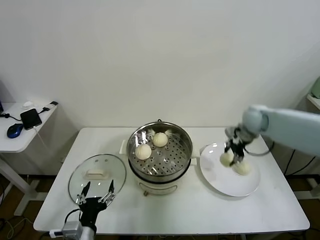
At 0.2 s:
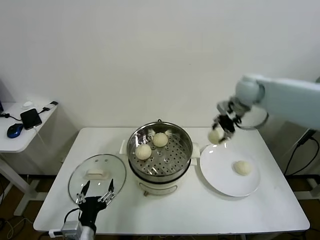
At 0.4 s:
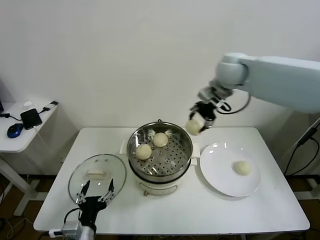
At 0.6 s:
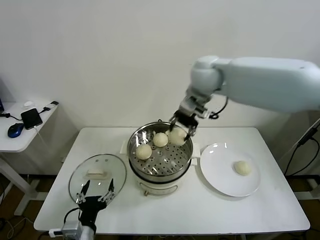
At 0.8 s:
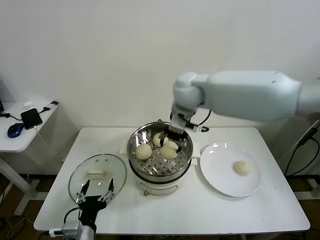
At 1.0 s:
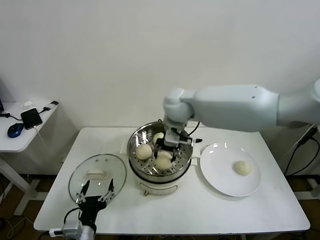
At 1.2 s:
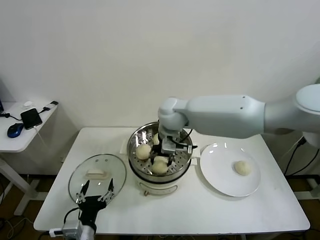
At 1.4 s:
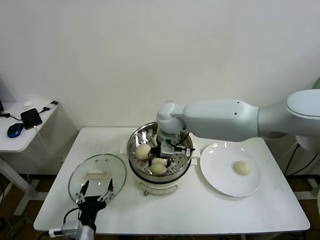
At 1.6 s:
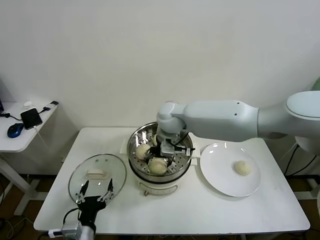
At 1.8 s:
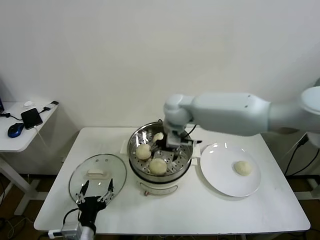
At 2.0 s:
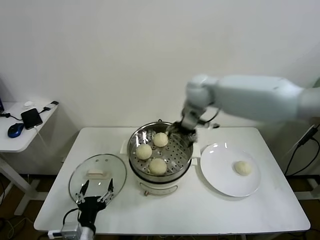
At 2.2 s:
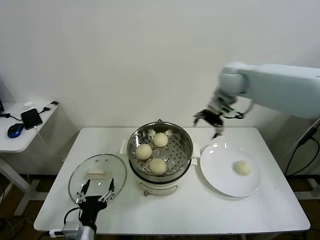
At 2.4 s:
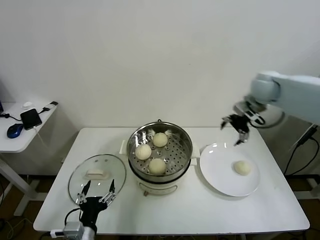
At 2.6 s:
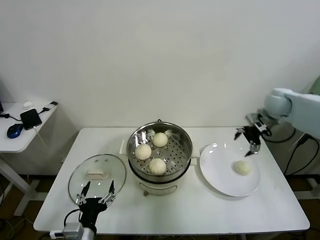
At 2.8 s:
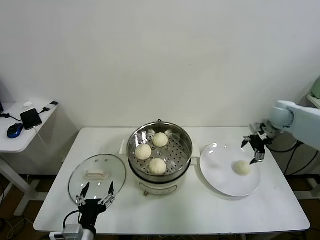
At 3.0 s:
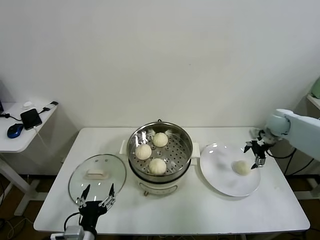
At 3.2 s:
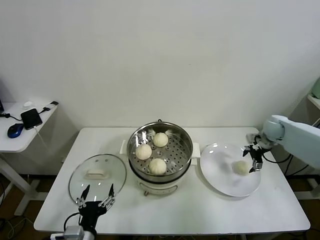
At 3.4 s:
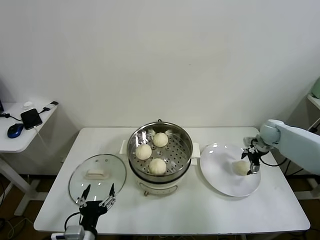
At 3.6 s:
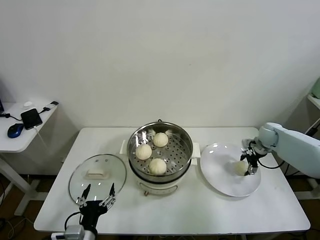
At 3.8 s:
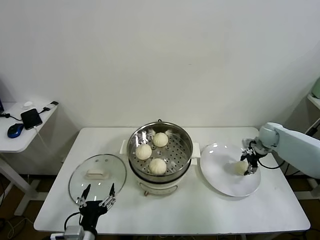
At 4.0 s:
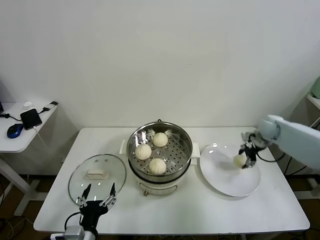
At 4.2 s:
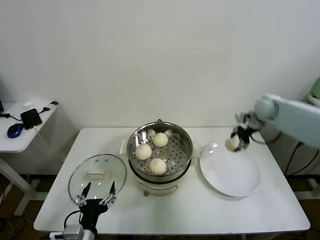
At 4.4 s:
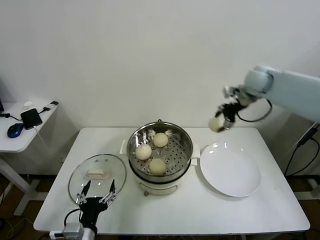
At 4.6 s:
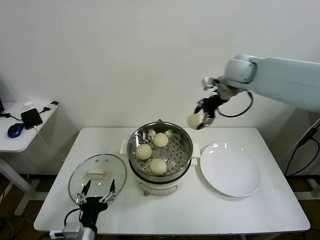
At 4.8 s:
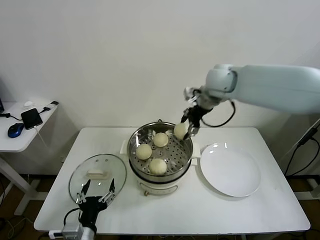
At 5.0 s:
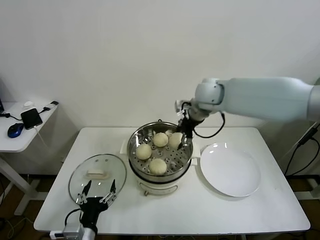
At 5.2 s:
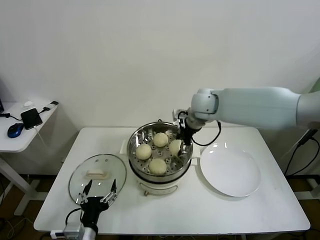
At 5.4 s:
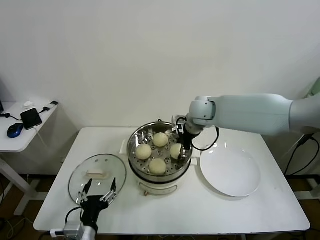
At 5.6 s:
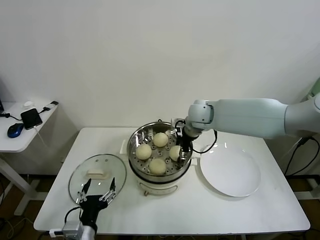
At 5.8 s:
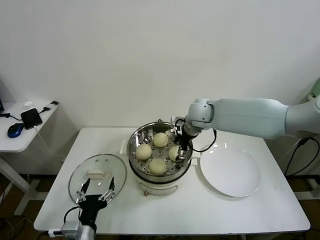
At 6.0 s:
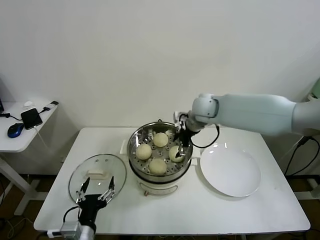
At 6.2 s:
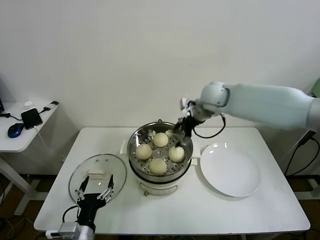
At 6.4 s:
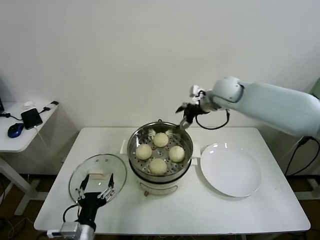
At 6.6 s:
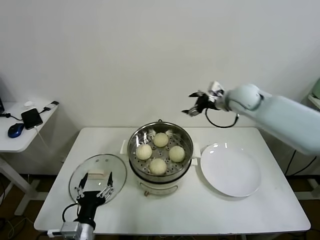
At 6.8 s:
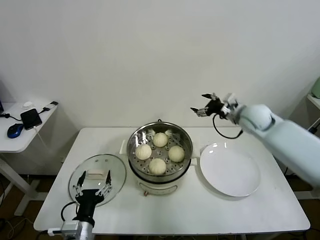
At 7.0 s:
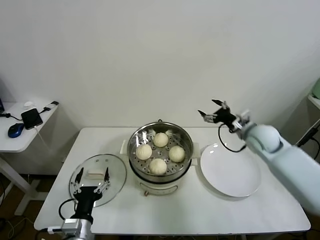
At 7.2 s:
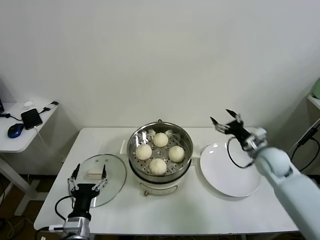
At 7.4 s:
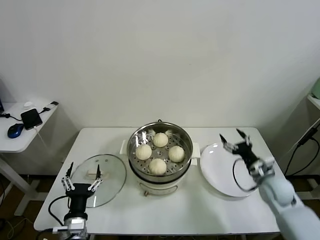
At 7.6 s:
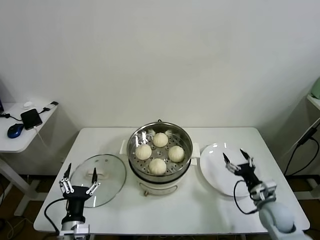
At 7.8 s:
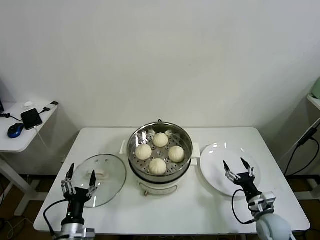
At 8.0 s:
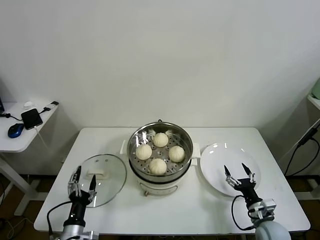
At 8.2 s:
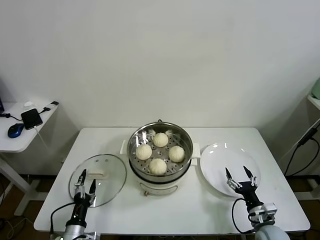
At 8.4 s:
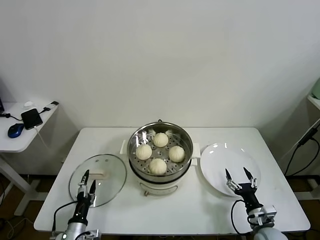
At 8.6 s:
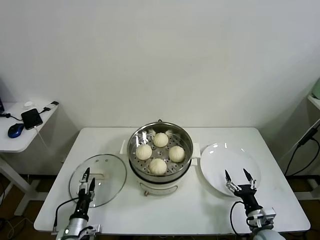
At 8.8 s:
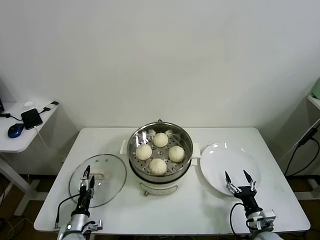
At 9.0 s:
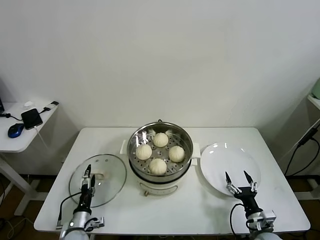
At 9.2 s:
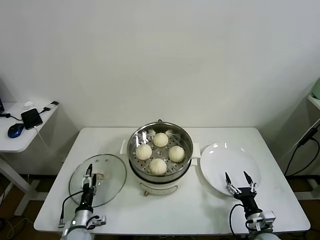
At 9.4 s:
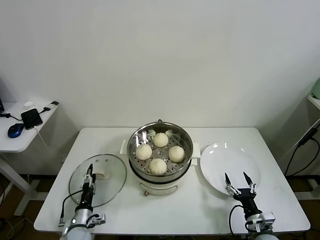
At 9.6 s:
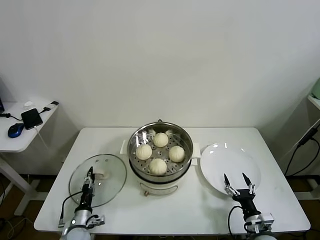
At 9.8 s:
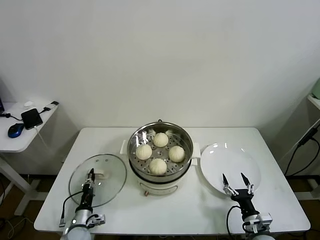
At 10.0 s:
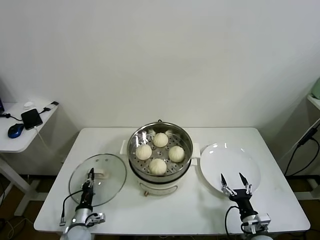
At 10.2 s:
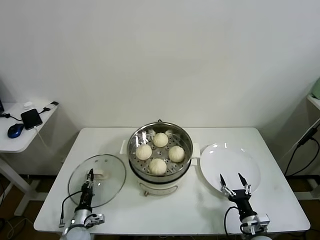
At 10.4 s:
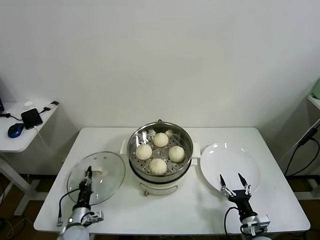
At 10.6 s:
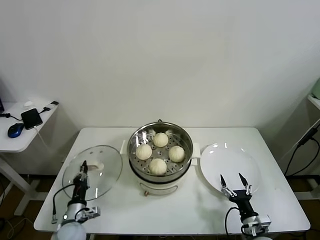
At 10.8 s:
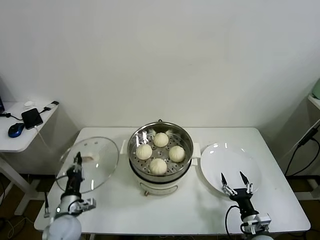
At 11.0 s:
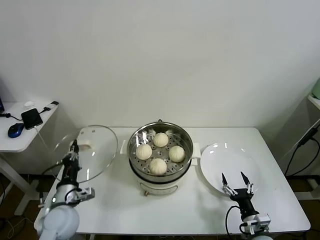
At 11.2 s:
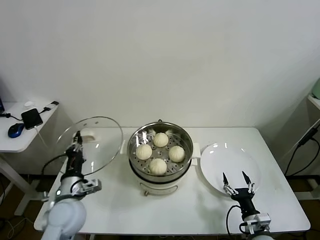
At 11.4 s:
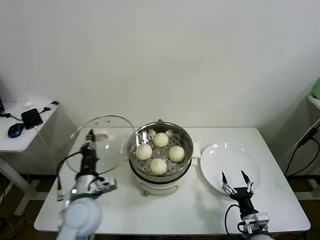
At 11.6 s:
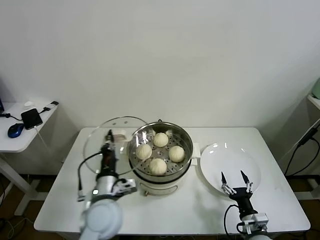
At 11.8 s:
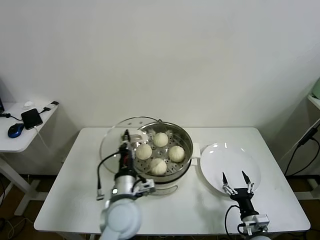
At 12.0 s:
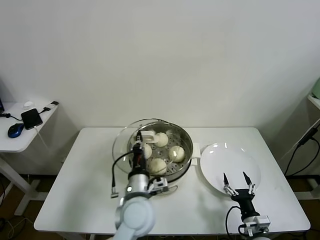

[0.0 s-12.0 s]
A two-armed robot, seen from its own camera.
Task of the whole recording: take steamed baozi put them in steamer.
Step, 0.0 to 1.6 s: Place the baozi on the steamer with right gripper.
Step, 1.8 to 3.6 s: Grasp the baozi in the plate with right gripper.
Step, 4.0 to 5.8 s: Place the baozi on the steamer with right gripper.
Step, 6.0 to 10.0 s: Grasp the pot lid with left gripper.
0.0 to 1.6 s: The right gripper is displaced to the left by approximately 30 cm, and opens.
1.6 to 3.0 s: The right gripper travels to the right by roughly 40 cm.
3.0 to 4.4 s: The right gripper goes some 20 cm upward and to the left, and closes its fingers.
4.4 to 6.0 s: The right gripper goes approximately 20 cm to the left and downward, and opens up.
6.0 to 7.6 s: The left gripper heads downward, covering some 5 cm. Meanwhile the right gripper is displaced downward, backward and to the right by approximately 40 cm.
7.6 to 9.0 s: The right gripper travels backward and downward by roughly 10 cm; the left gripper goes about 15 cm downward, forward and to the left.
9.0 to 10.4 s: The left gripper closes.
10.4 to 12.0 s: The left gripper travels to the right and upward by about 35 cm.

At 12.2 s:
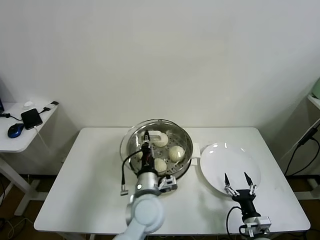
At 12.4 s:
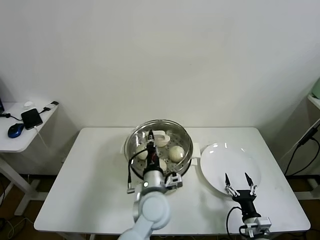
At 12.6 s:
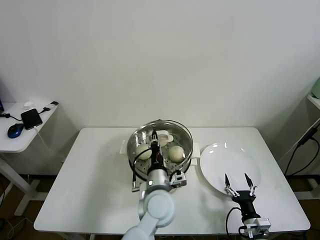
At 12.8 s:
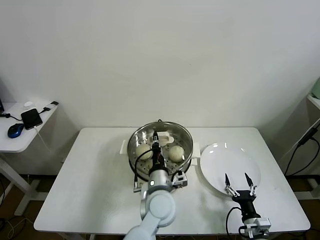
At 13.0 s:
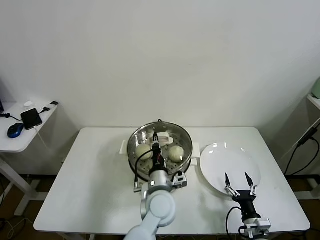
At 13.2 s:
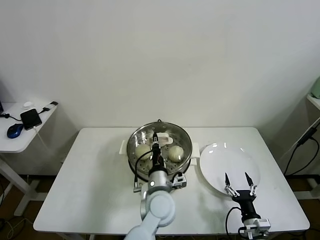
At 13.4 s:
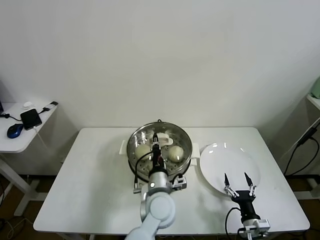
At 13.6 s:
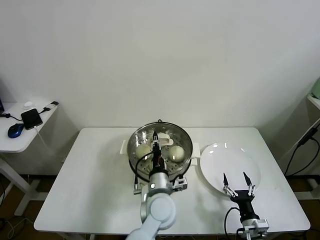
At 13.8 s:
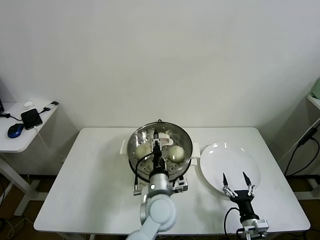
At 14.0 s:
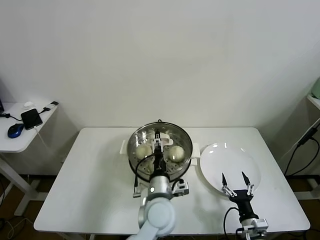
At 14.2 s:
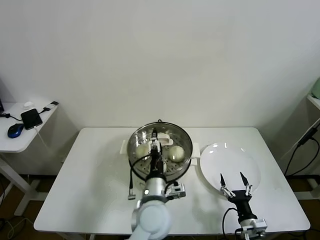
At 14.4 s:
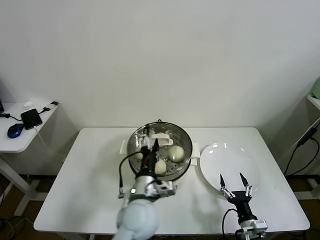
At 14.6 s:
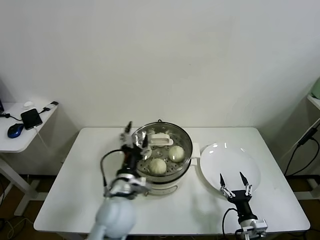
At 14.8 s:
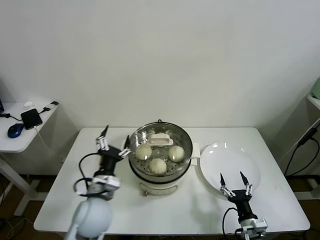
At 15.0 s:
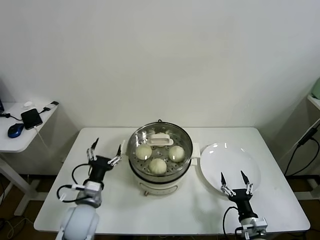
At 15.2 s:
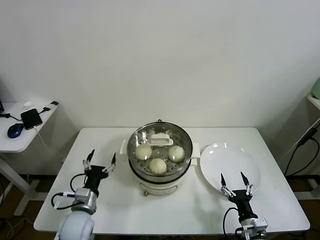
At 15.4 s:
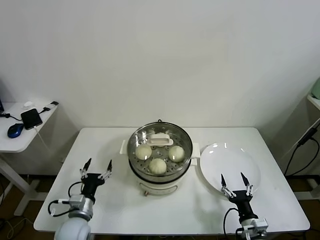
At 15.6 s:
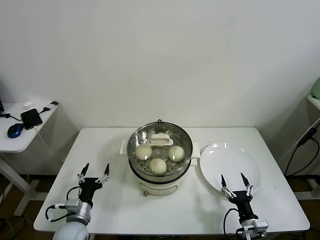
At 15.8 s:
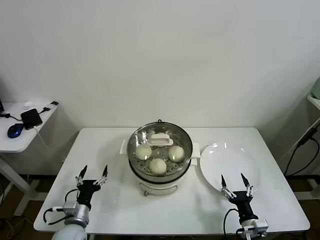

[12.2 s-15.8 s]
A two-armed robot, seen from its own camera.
Task of the whole recording: take steamed baozi put them in steamer.
12.2 to 14.0 s: The left gripper opens its fingers.
14.0 to 15.8 s: The left gripper heads to the left, covering roughly 30 cm.
